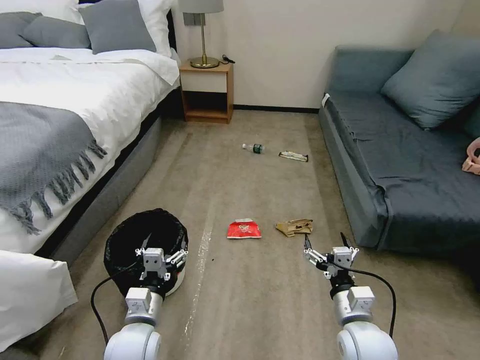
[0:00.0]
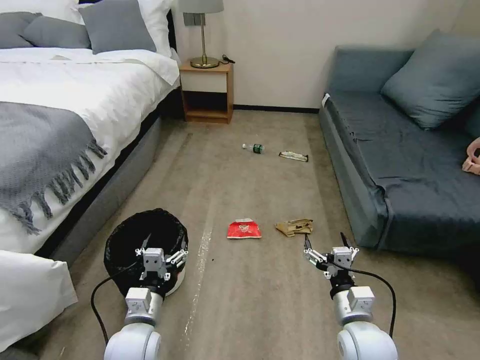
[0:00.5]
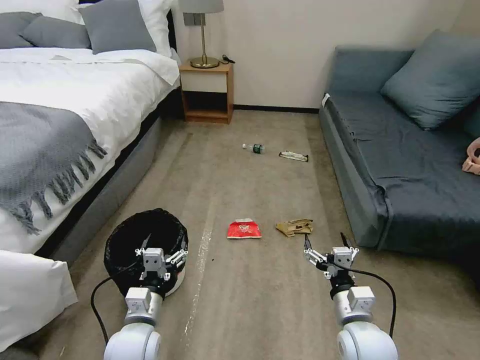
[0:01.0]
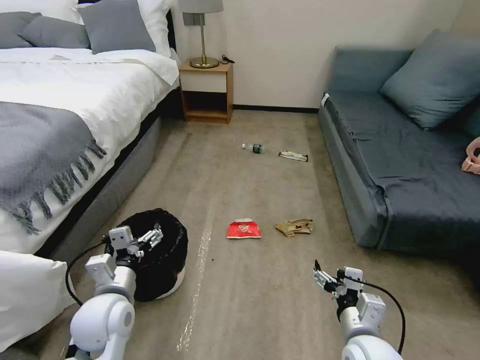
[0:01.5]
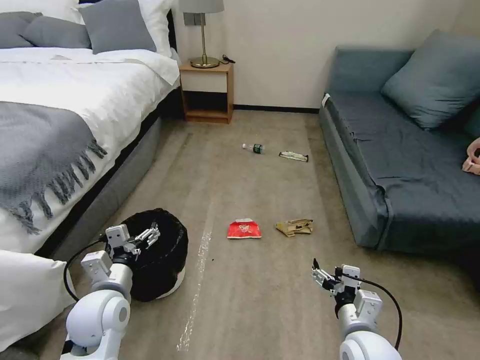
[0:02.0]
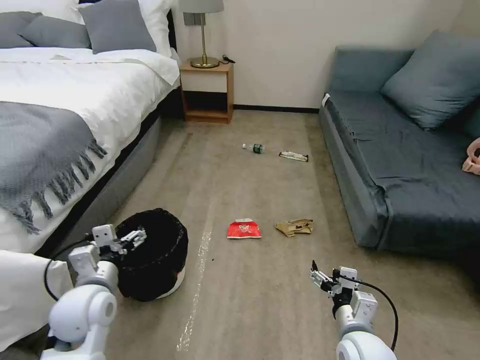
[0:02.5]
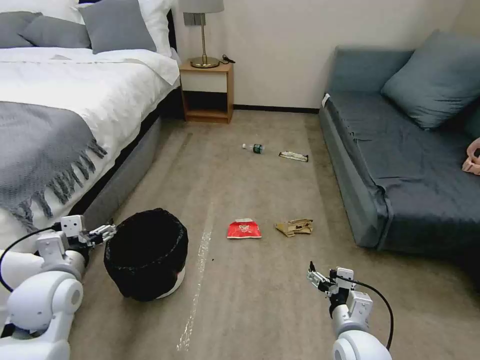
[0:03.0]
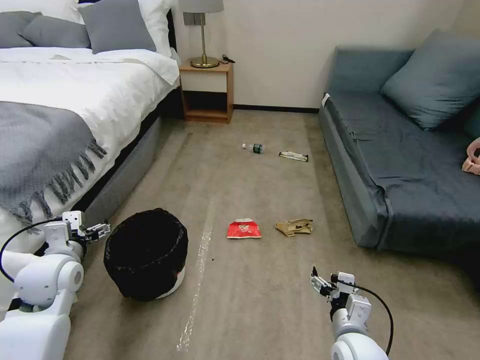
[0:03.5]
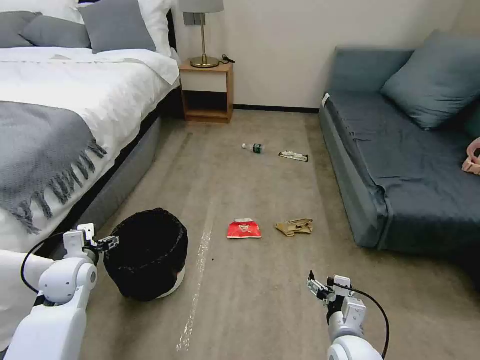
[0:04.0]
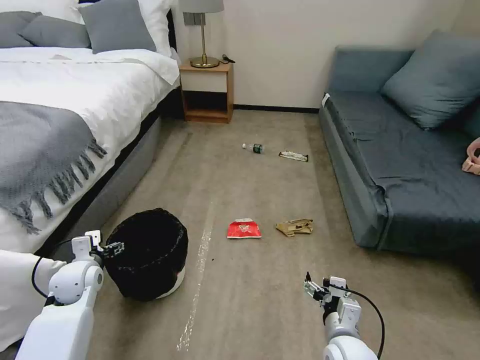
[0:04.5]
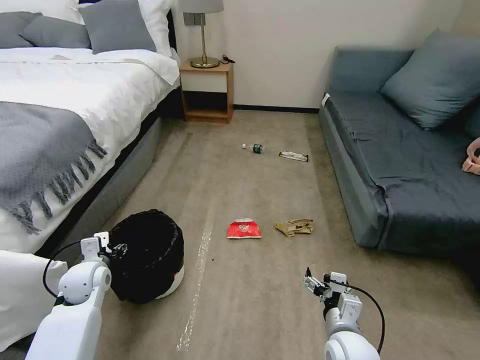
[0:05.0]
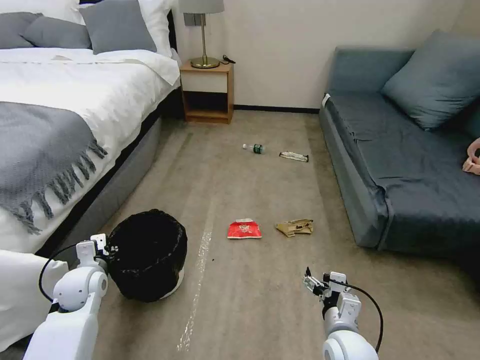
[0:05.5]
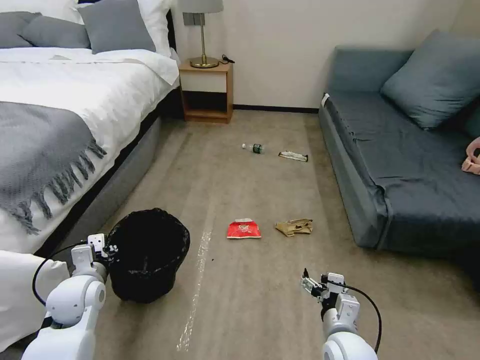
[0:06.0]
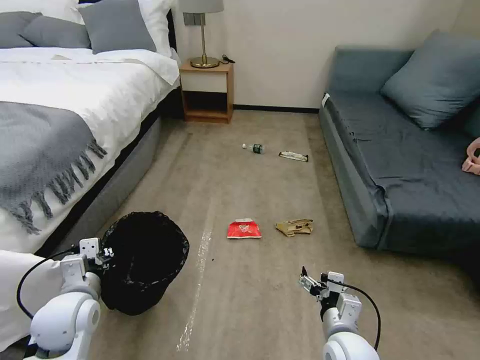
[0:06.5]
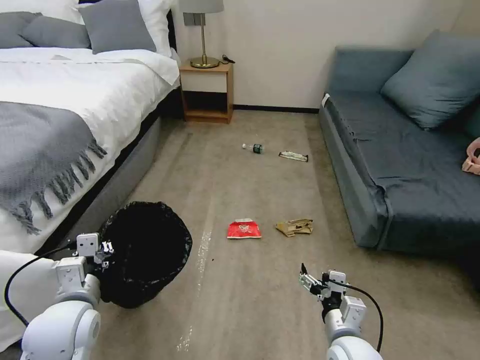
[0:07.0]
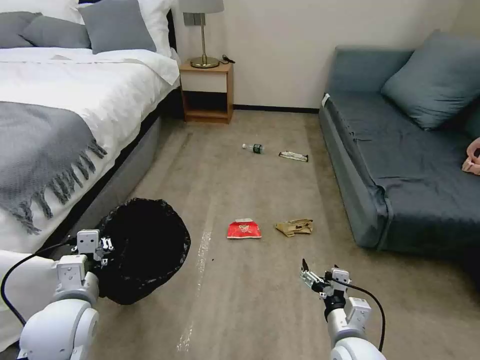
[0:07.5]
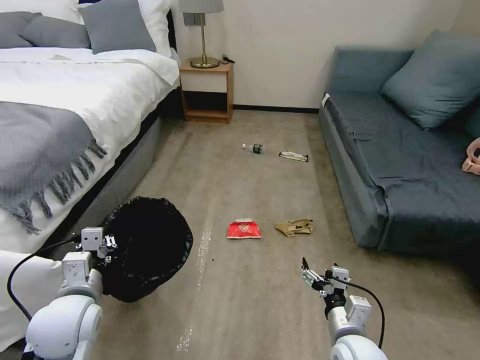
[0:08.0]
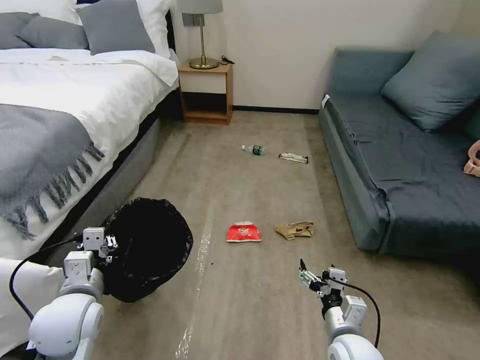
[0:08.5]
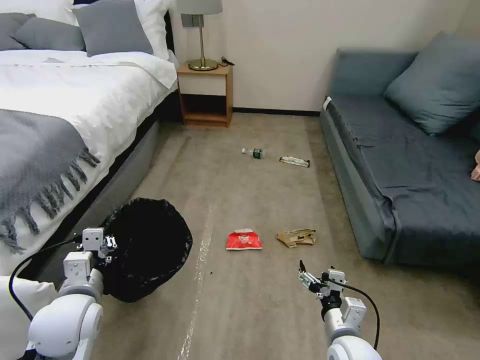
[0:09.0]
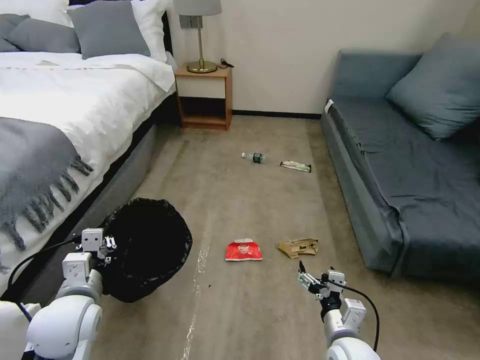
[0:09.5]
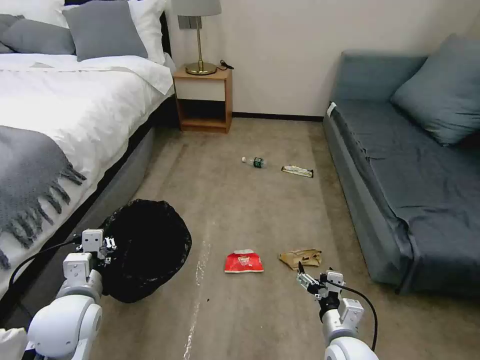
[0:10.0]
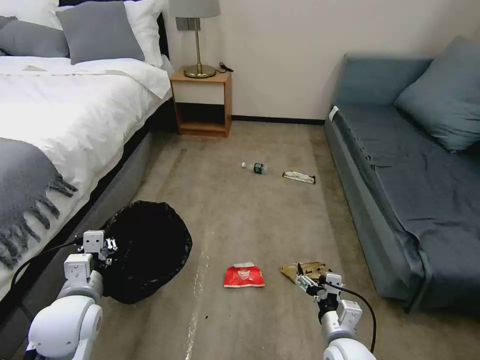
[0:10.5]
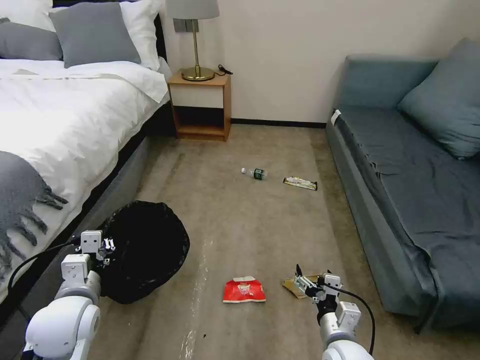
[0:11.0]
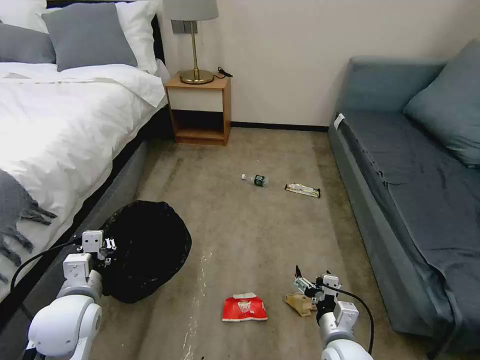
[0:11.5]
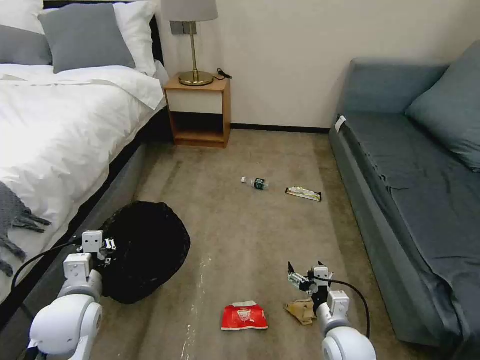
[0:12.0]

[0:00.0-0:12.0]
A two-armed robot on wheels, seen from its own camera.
Task of the whole recording: Pick up the trash bin, then pick up the garbage on the floor and place it into the trash bin.
2.0 to 4.0 s: The left gripper shifts roughly 15 cm to the left and forward.
4.0 to 6.0 s: The left gripper closes up.
6.0 to 8.0 s: The left gripper heads backward and upward, covering some 10 cm.

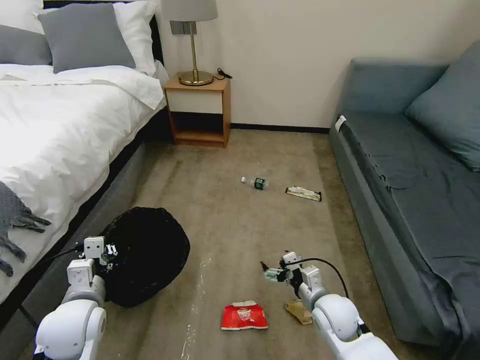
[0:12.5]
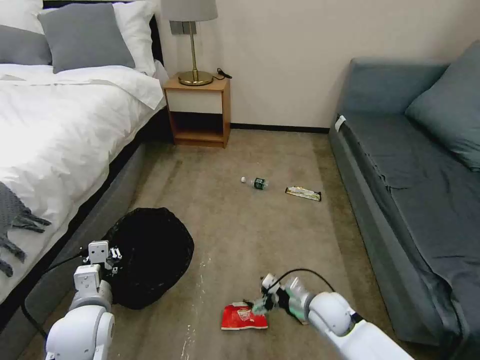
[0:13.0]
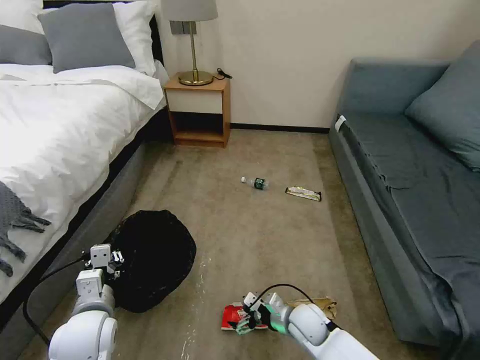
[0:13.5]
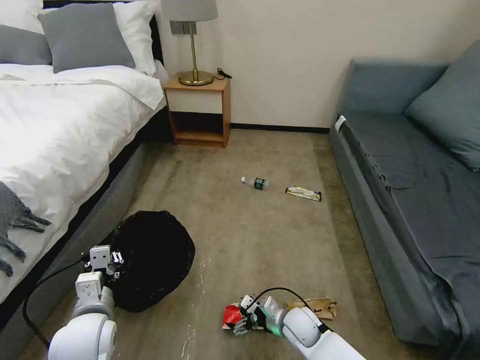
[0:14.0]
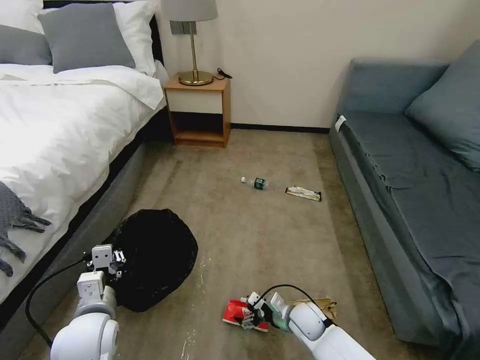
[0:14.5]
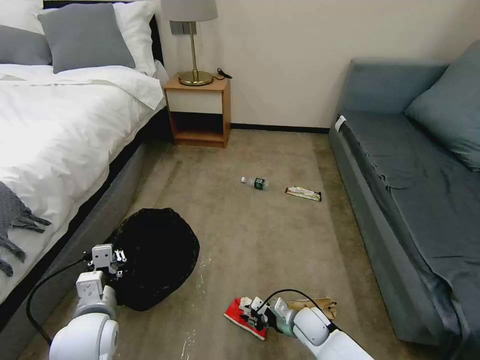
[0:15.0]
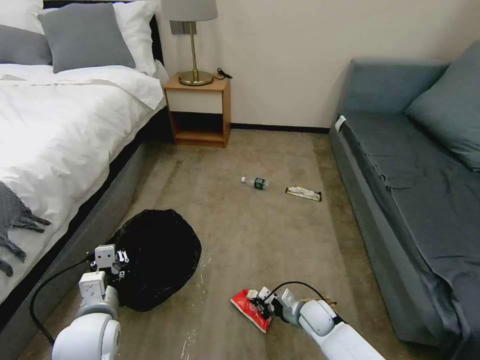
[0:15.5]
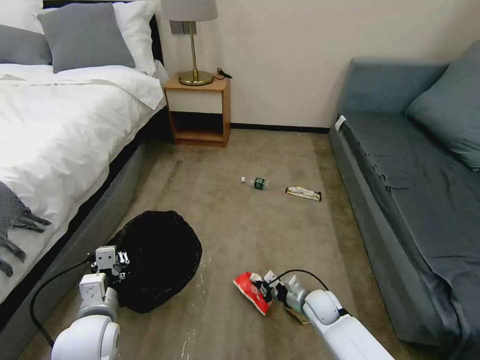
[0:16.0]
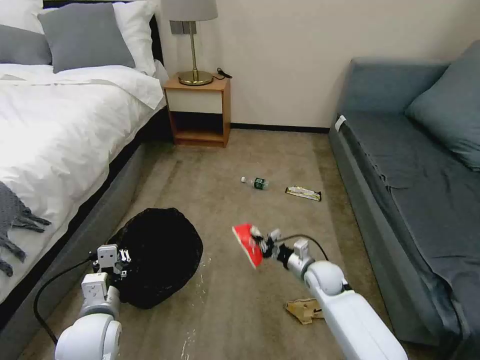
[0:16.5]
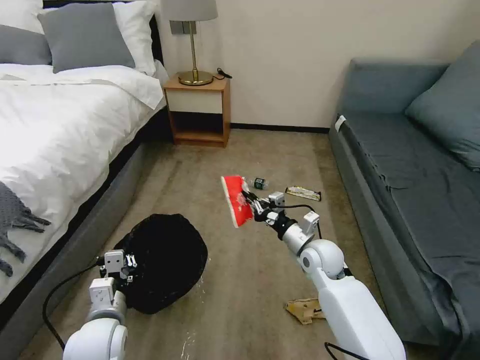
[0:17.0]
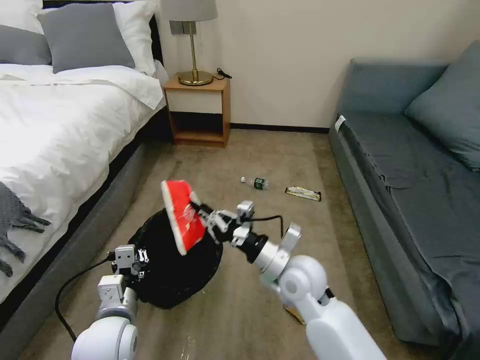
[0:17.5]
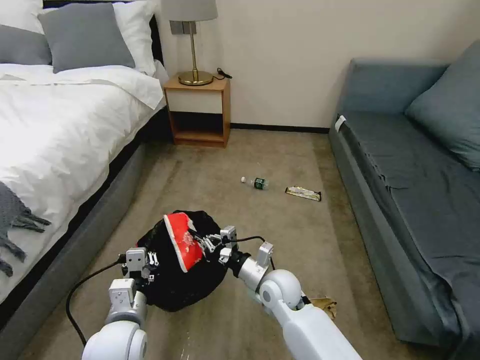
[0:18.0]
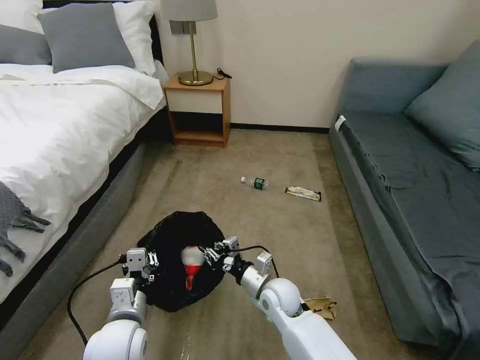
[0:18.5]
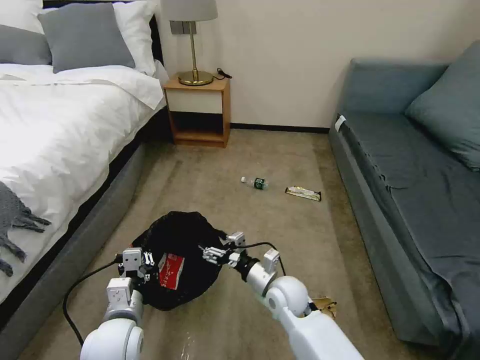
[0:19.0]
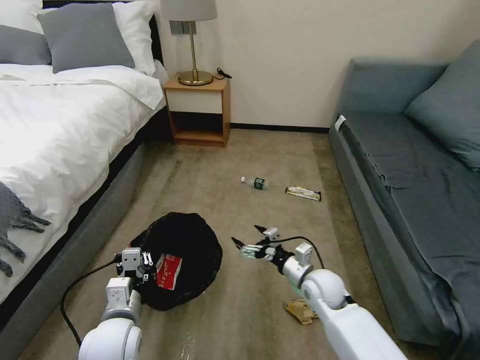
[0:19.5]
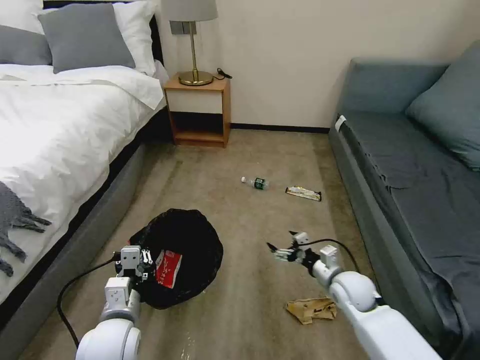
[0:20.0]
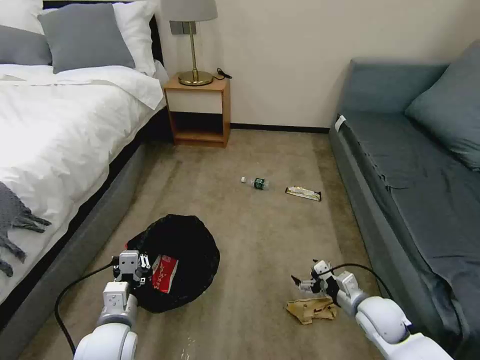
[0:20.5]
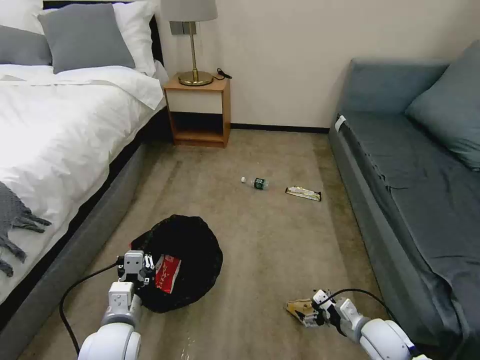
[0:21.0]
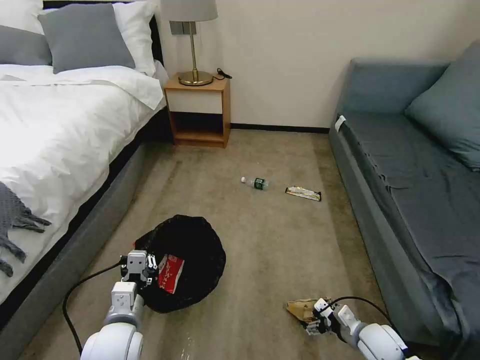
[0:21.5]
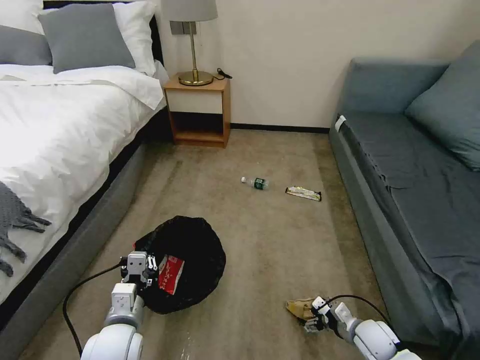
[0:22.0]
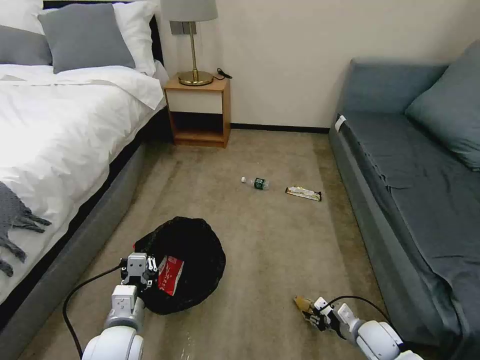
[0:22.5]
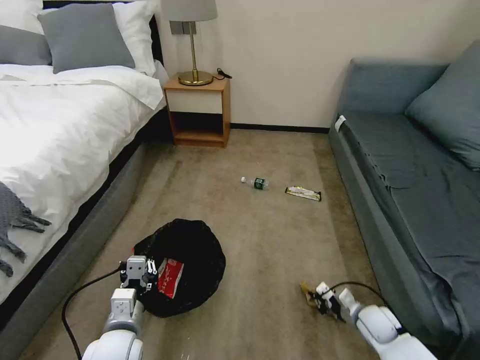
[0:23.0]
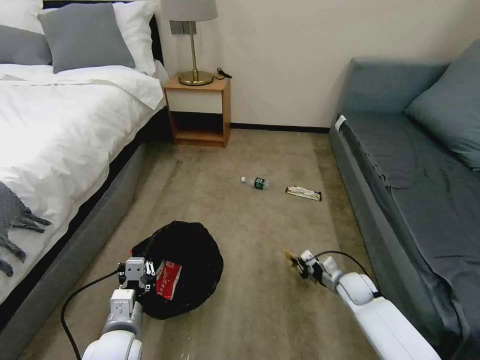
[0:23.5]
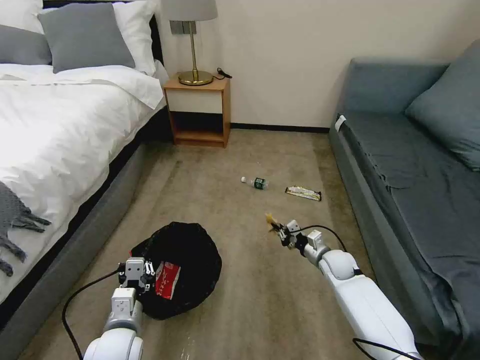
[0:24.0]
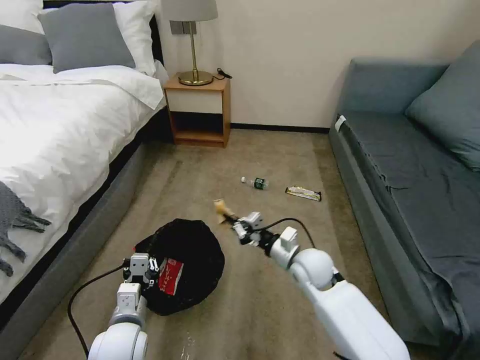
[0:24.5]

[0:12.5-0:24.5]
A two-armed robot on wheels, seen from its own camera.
Task of the whole recording: Pick up the trash bin, then pick up the garbage on the floor and place it into the trash bin.
12.5 to 14.5 s: The right gripper travels downward by about 10 cm.
14.5 to 16.5 s: The right gripper shifts roughly 15 cm upward and forward, and closes its fingers.
16.5 to 18.5 s: The left gripper moves to the right, approximately 5 cm. Meanwhile the right gripper goes approximately 15 cm to the left and backward, and goes upward and returns, about 15 cm each way.
18.5 to 20.5 s: The right gripper travels to the right by roughly 25 cm, and opens.
20.5 to 22.5 s: The right gripper goes some 10 cm downward, and closes its fingers.
22.5 to 24.5 s: The right gripper goes roughly 25 cm to the left, upward and forward, and closes up.

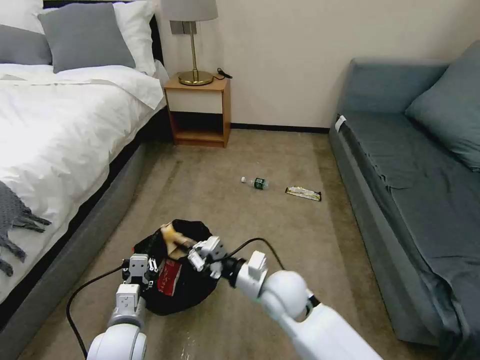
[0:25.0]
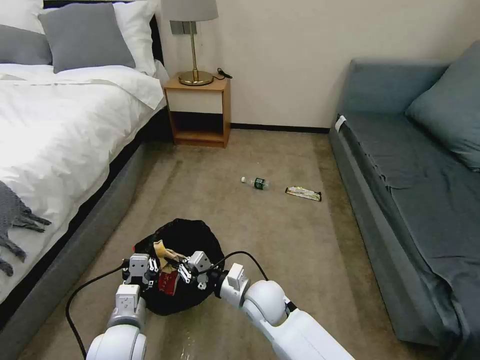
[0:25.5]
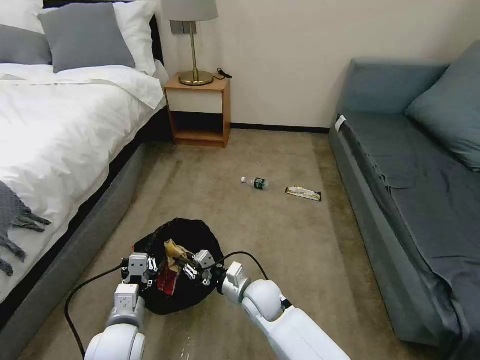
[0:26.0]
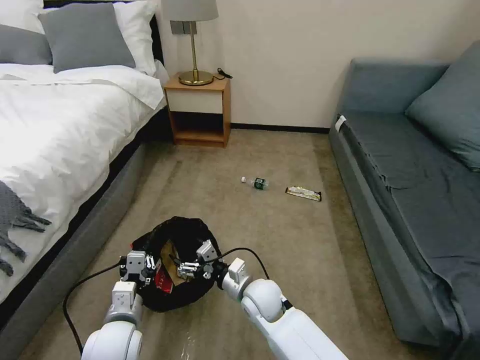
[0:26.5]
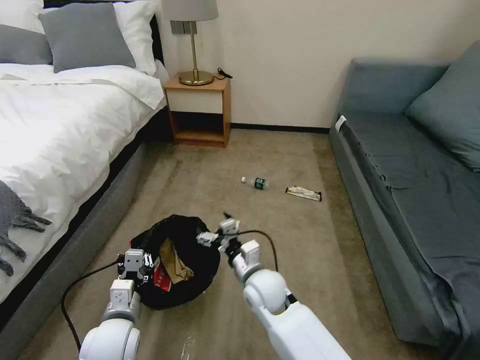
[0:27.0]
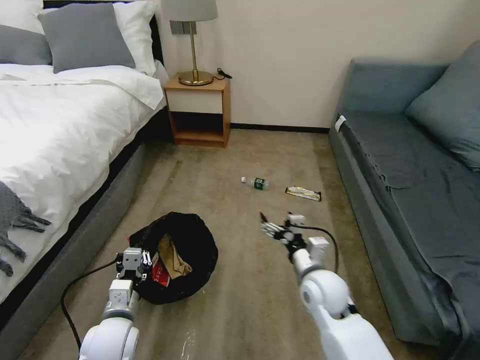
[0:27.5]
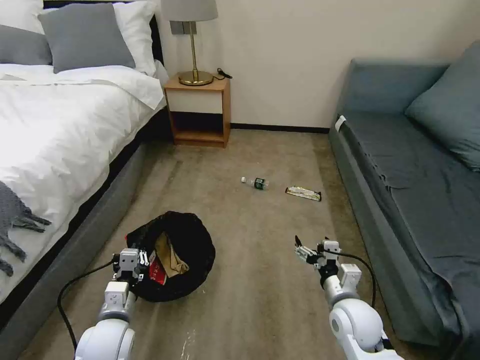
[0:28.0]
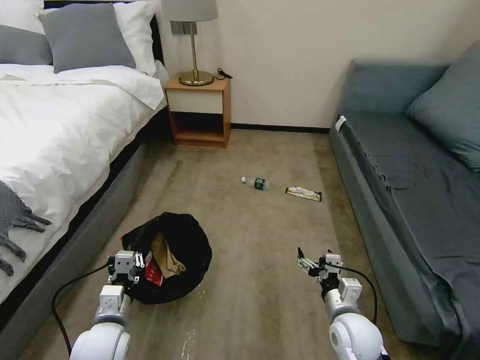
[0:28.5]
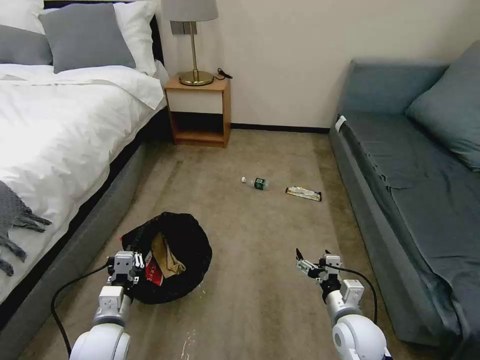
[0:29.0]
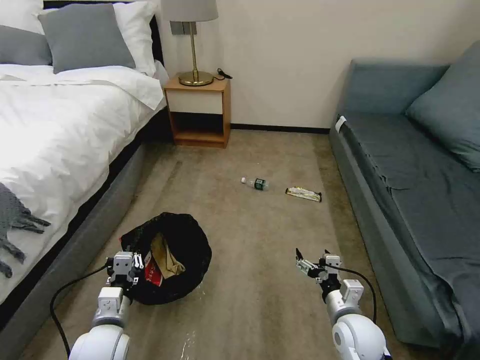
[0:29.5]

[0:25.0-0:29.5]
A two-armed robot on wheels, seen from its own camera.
Task of the whole recording: Pick up the trash bin, then pick up the garbage on the floor and place it into the trash bin.
25.0 to 27.0 s: The right gripper opens.
27.0 to 29.5 s: The right gripper is displaced to the right and backward by approximately 20 cm.
